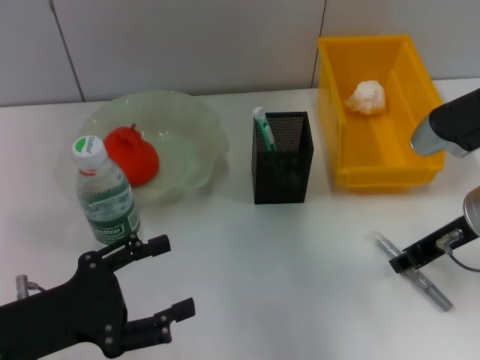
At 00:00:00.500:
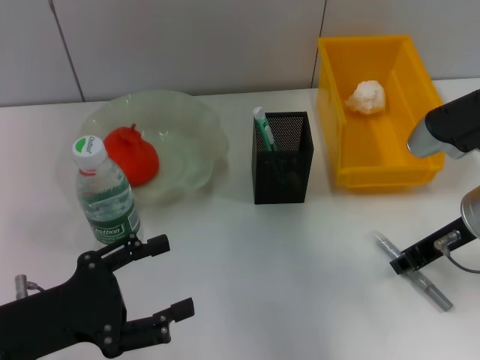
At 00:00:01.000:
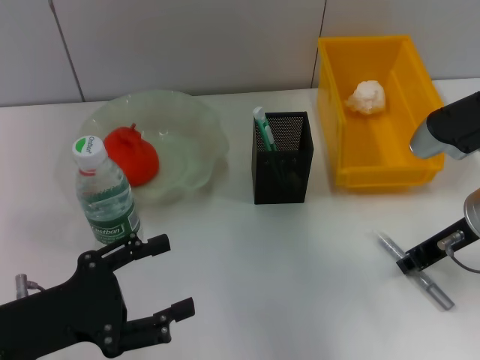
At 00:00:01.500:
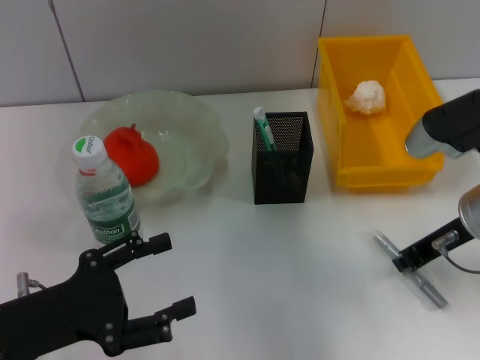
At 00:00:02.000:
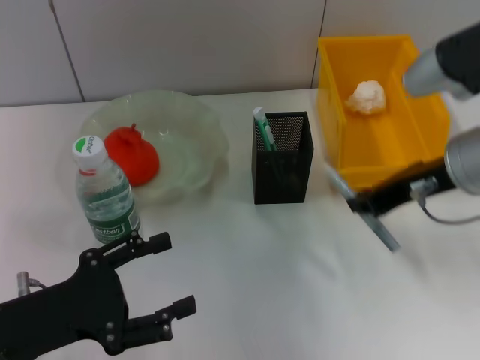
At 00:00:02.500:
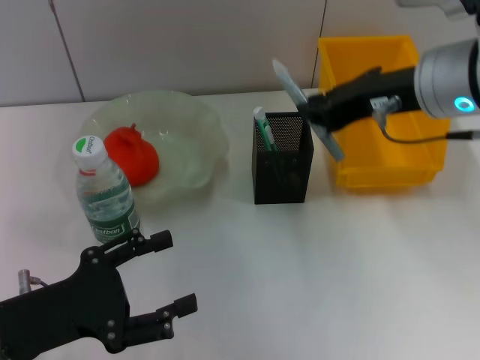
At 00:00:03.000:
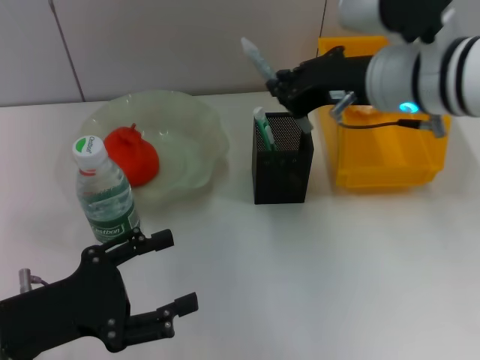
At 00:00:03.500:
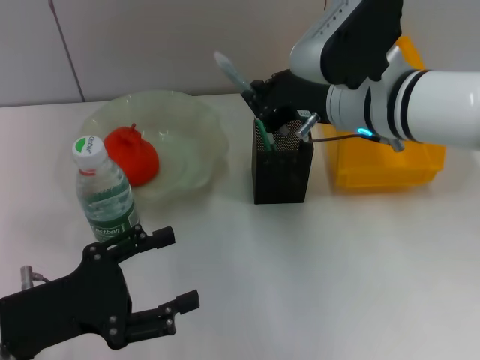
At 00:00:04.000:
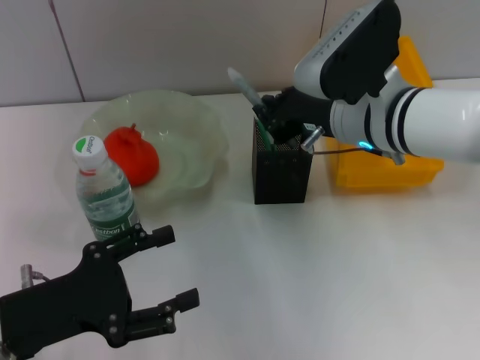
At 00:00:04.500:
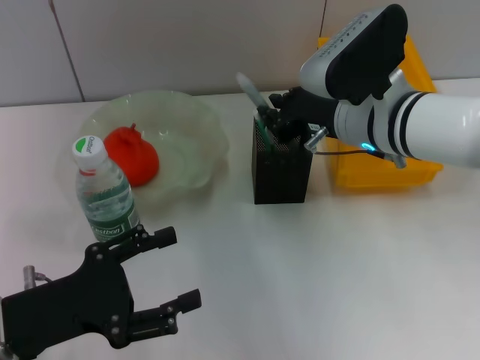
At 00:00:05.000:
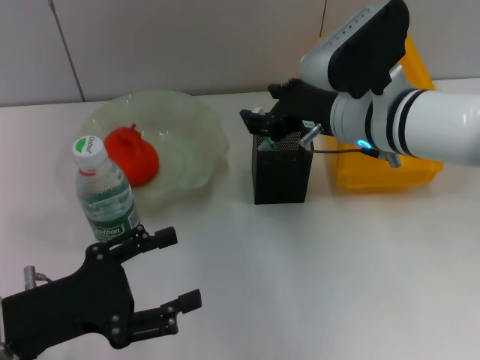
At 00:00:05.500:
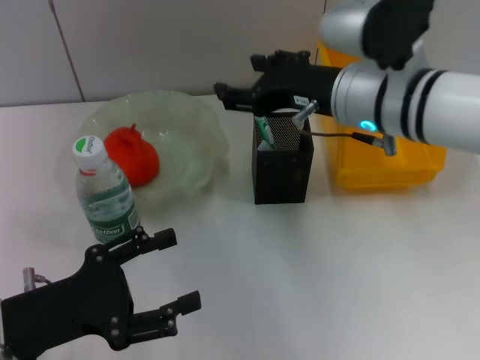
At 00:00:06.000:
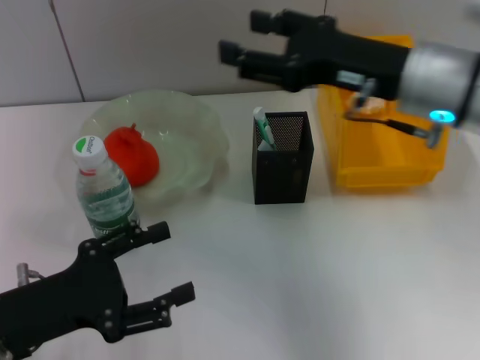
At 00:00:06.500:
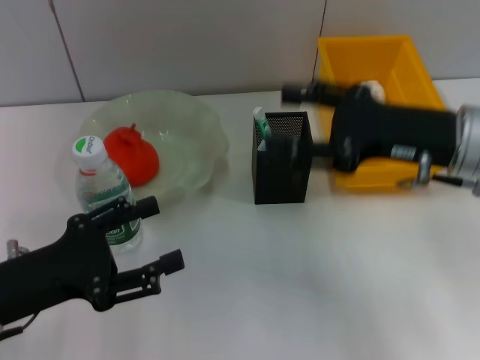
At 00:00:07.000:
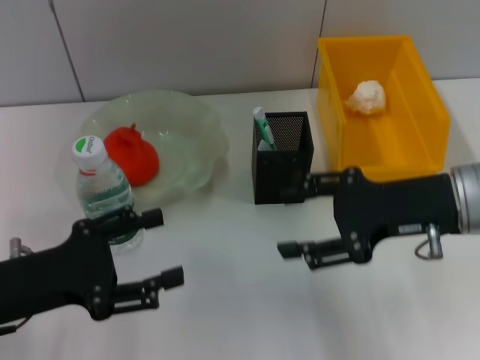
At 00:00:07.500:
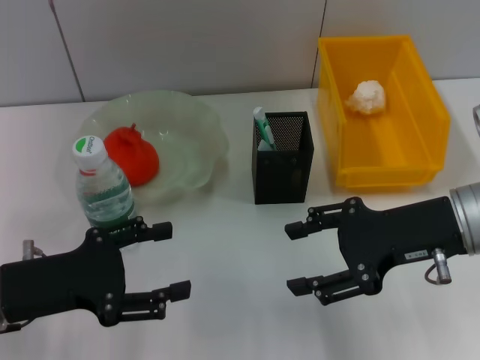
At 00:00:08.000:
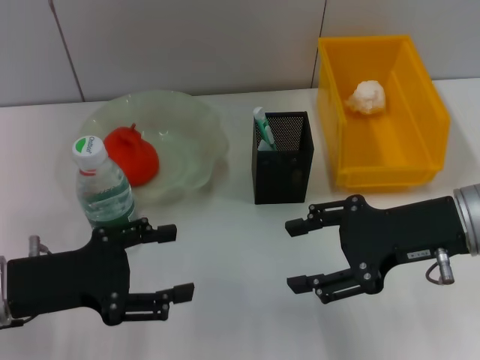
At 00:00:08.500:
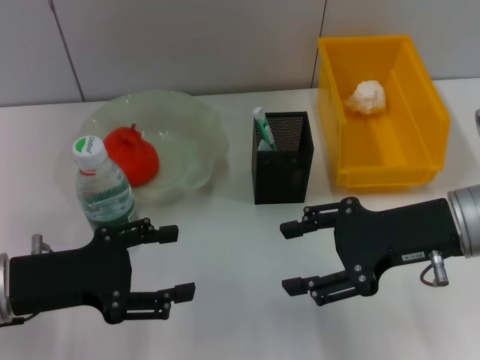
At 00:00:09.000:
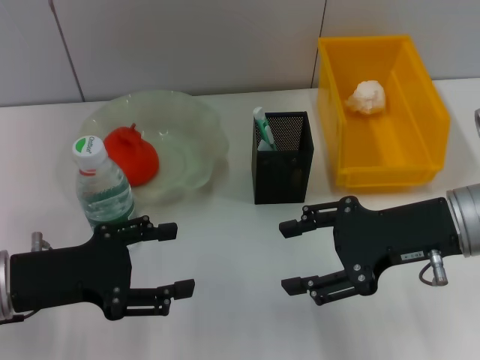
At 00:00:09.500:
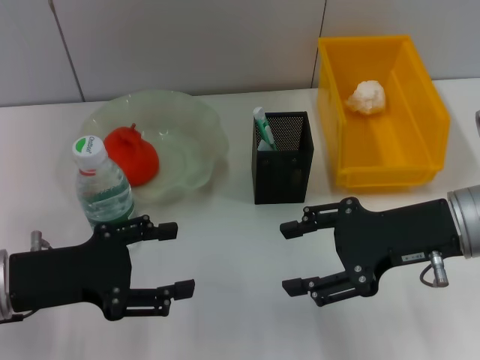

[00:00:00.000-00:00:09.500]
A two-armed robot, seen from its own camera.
Step, 00:00:01.500 to 00:00:04.500: Place the gray glue into the pen holder with the right hand.
00:00:00.000 to 00:00:02.000: The right gripper moves upward, approximately 5 cm, and closes.
00:00:02.000 to 00:00:04.000: The right gripper is displaced to the left and forward by approximately 10 cm.
00:00:04.000 to 00:00:05.500: The right gripper opens its fingers.
00:00:05.500 to 00:00:07.500: The right gripper is displaced to the right and backward by roughly 10 cm.
00:00:07.500 to 00:00:09.500: The two grippers keep their place.
